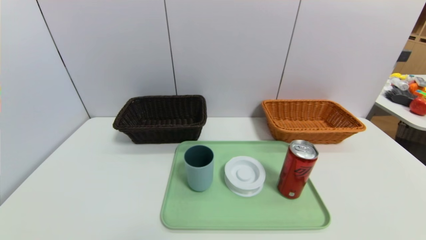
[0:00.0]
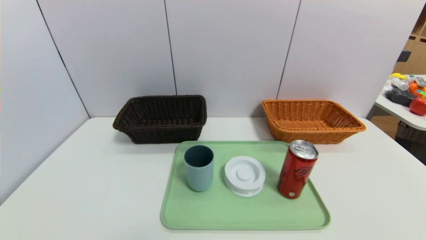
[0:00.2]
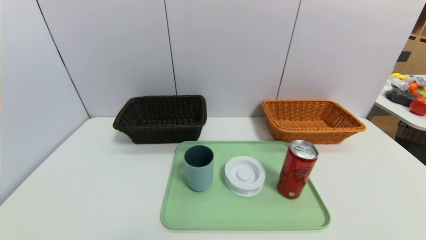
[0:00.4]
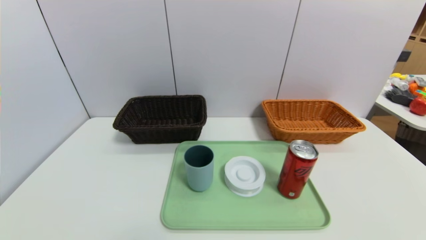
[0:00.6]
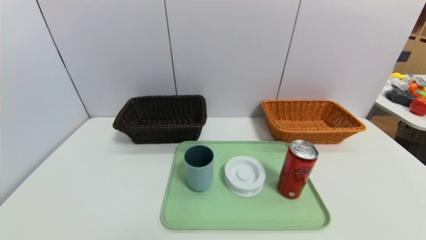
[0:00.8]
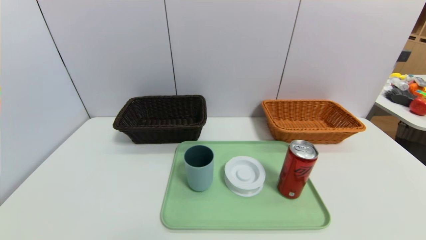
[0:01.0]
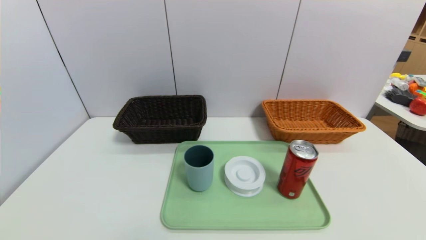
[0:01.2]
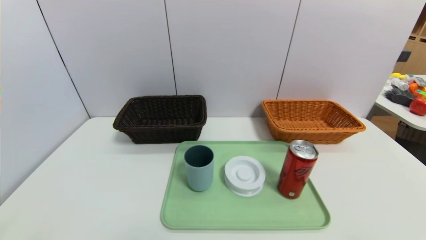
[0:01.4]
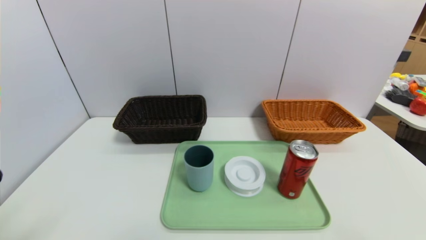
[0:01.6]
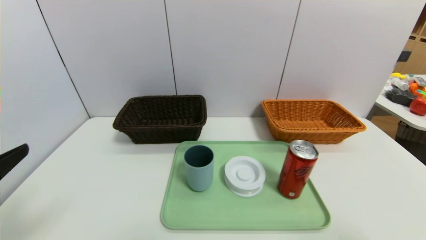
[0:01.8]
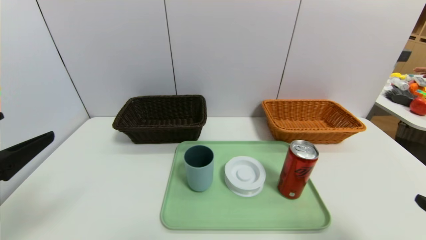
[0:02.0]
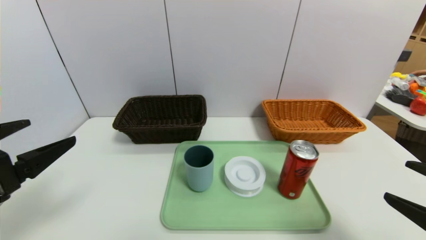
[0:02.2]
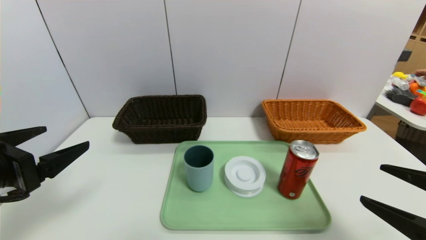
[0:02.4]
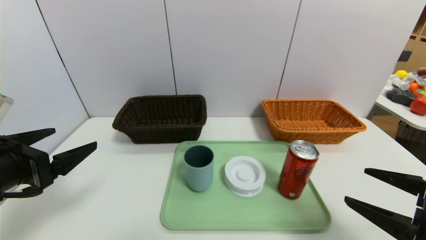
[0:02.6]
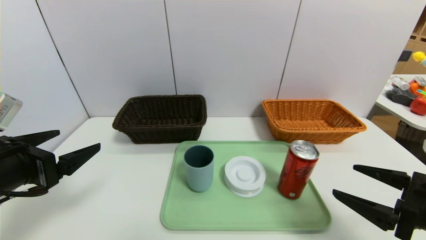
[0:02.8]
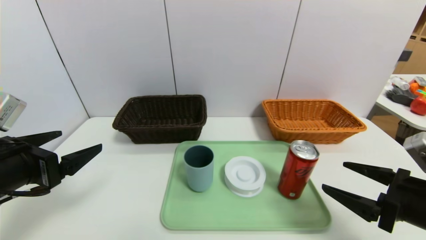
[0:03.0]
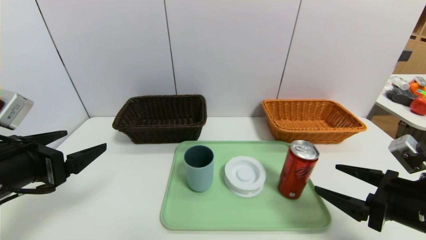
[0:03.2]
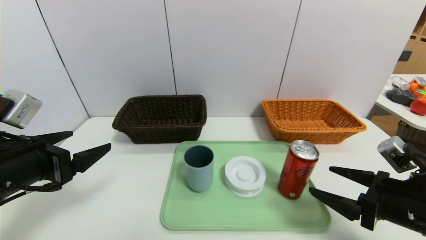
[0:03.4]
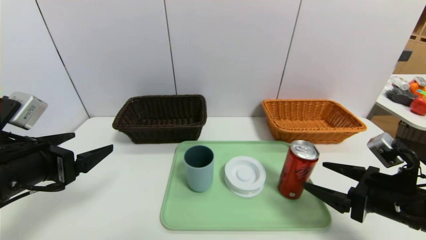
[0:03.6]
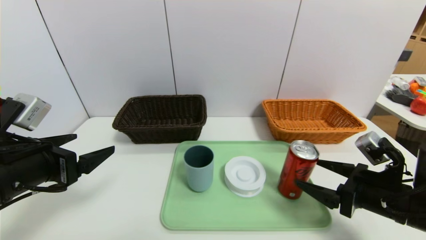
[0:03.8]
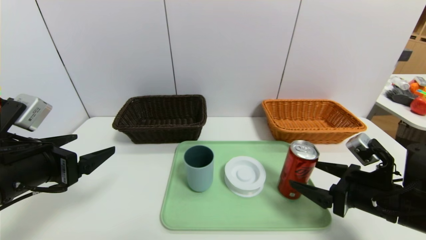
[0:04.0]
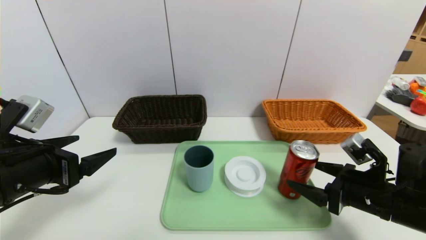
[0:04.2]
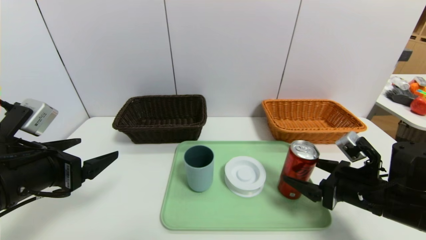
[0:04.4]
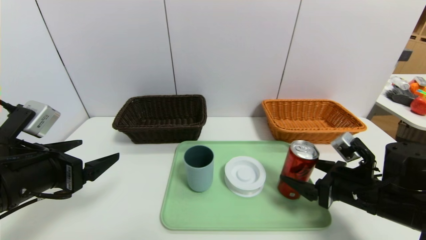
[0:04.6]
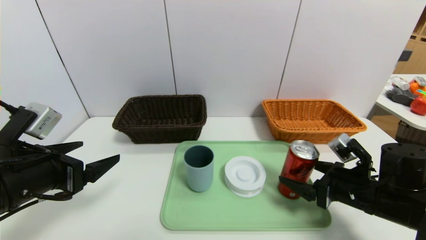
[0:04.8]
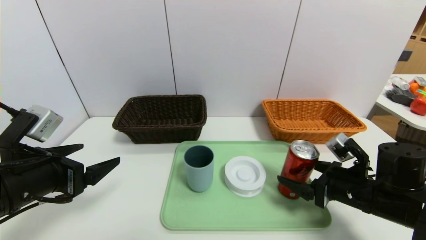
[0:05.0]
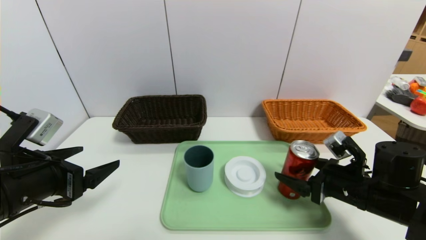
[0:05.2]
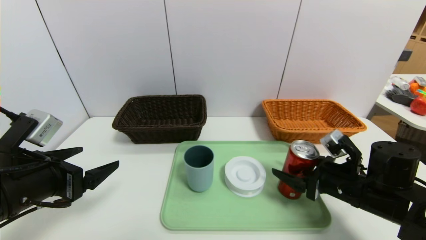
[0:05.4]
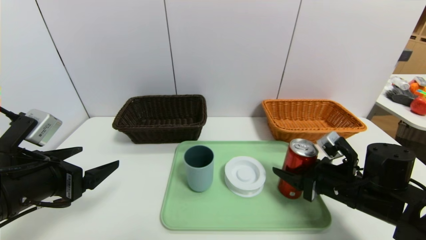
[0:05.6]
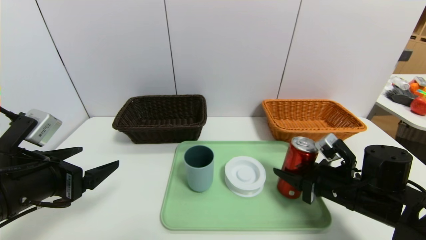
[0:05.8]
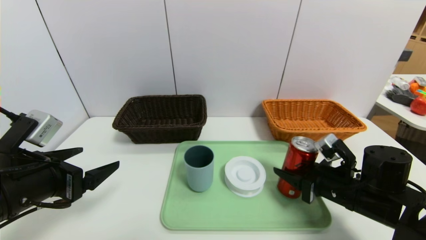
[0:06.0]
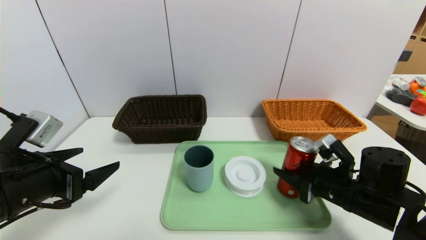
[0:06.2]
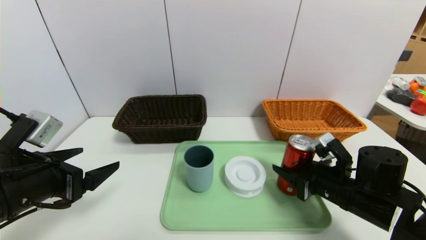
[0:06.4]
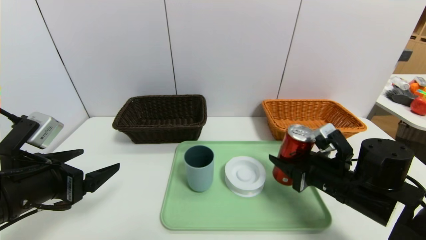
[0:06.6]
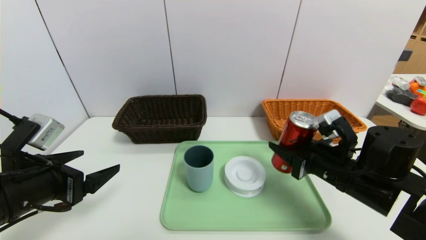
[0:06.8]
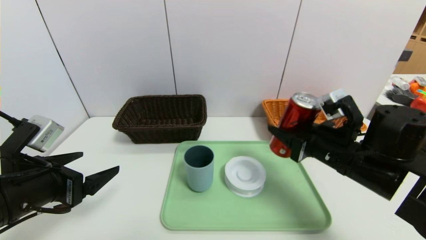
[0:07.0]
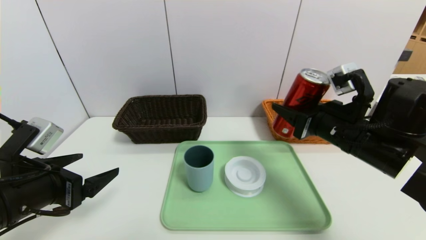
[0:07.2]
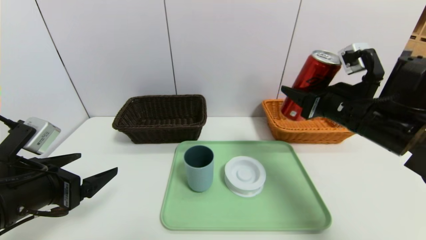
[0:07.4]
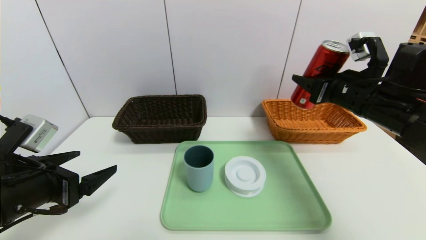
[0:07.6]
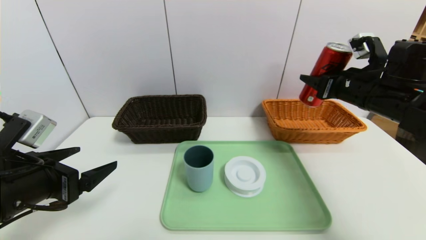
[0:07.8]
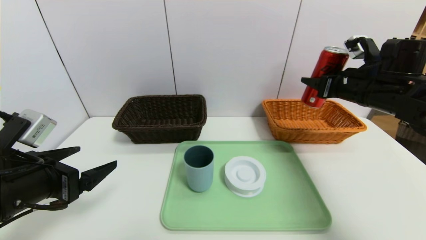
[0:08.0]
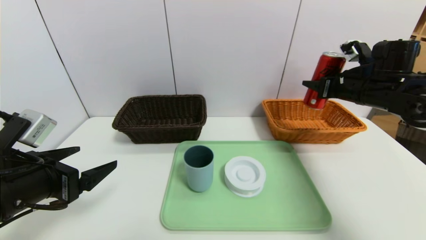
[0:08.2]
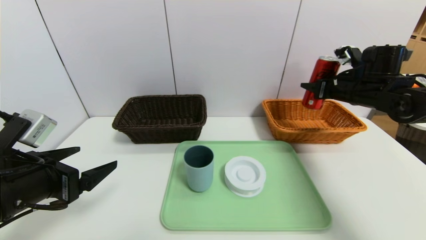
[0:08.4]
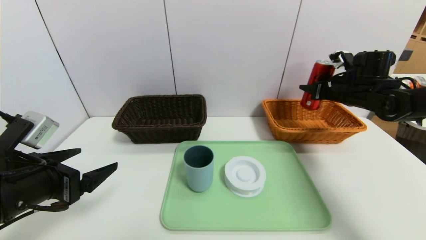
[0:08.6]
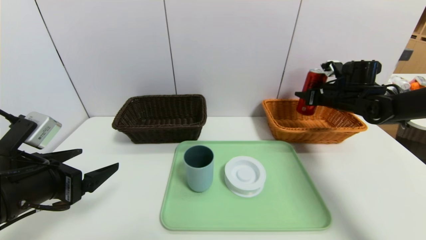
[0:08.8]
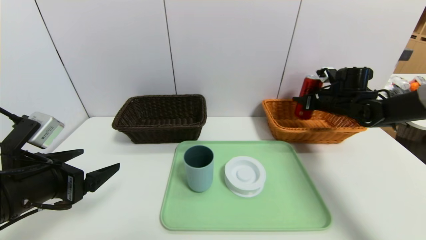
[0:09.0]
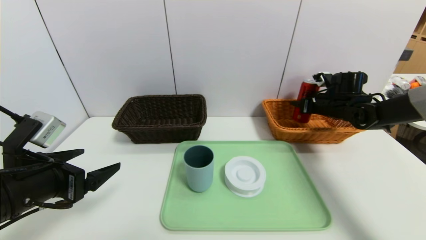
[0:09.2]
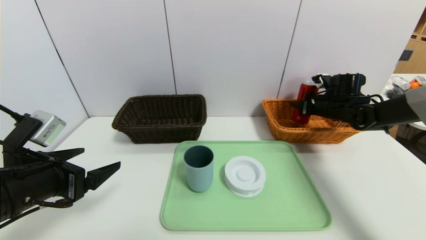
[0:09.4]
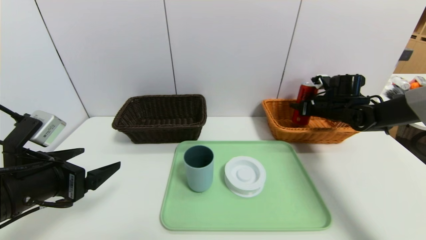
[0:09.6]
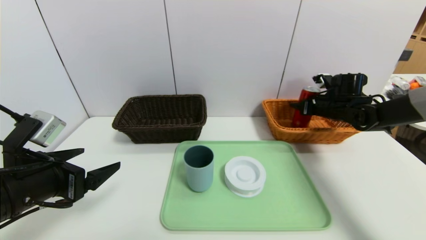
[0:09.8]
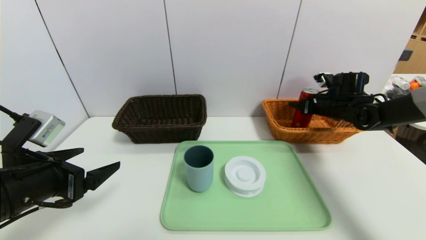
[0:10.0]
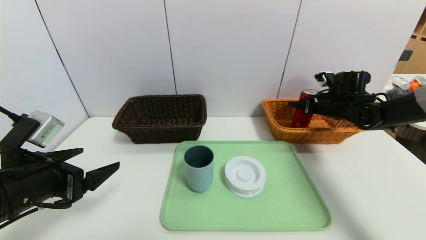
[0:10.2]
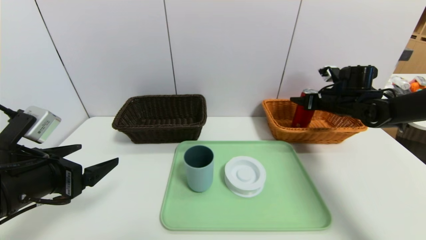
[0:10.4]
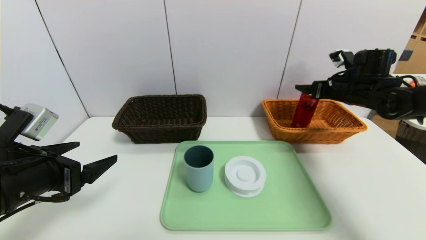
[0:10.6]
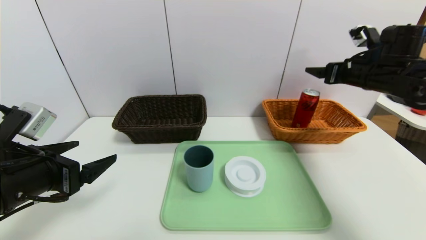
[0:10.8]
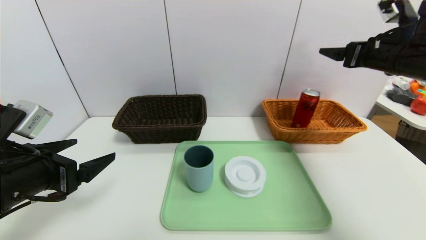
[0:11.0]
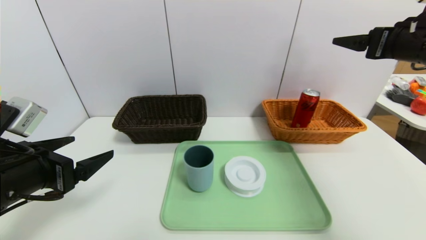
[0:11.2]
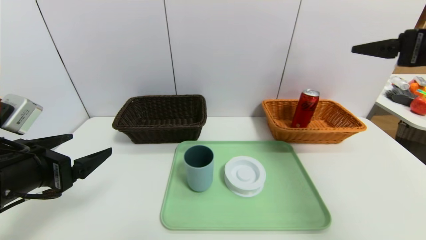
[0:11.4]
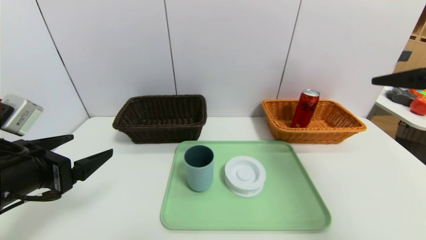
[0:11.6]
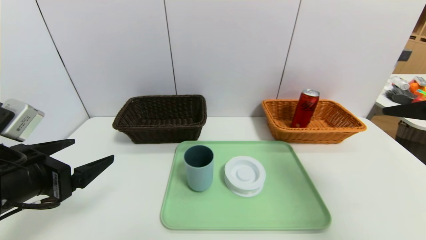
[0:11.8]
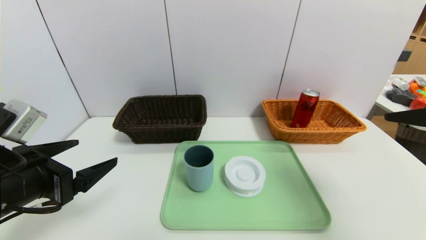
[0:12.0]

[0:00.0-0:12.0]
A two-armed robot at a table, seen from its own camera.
Task of the whole recording: place the food in the right basket with the right gripper, and place the non food items in the left basket with the left gripper.
Step, 0:00.0 to 0:10.4: Grasp the coke and put it in the right basket.
0:01.6 to 0:03.0: The right gripper is displaced forward and downward by some 15 cm, while the left gripper shifts approximately 15 cm forward.
0:03.0 to 0:04.4: The right gripper travels forward by some 5 cm.
0:04.4 to 0:06.0: The right gripper closes up.
0:06.0 to 0:07.6: The right gripper shifts about 15 cm upward and forward.
0:07.6 to 0:09.0: The right gripper heads forward, downward and to the right, covering approximately 20 cm.
0:09.0 to 0:10.4: The right gripper opens.
0:10.4 to 0:12.0: The right gripper is displaced backward and upward by roughly 30 cm.

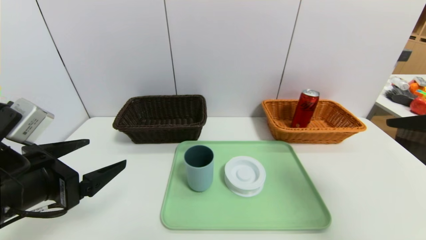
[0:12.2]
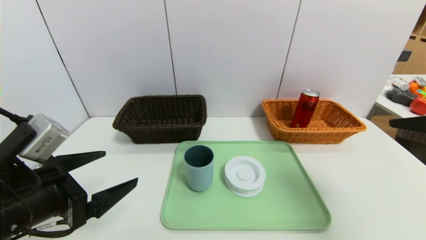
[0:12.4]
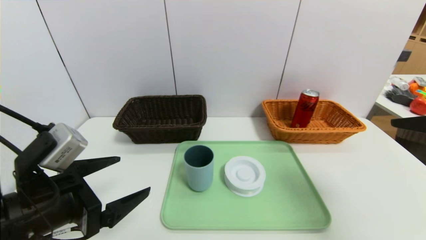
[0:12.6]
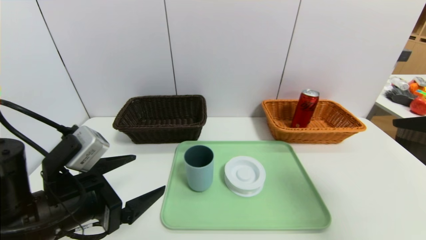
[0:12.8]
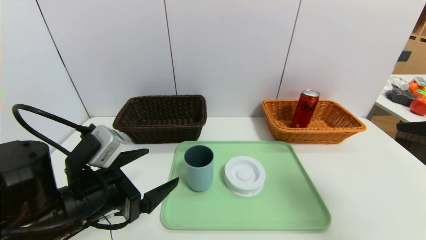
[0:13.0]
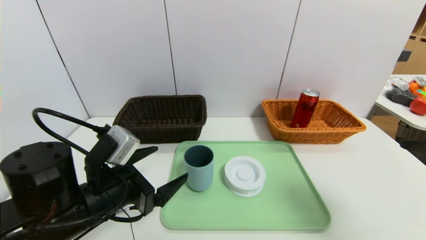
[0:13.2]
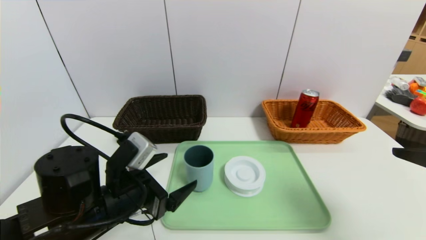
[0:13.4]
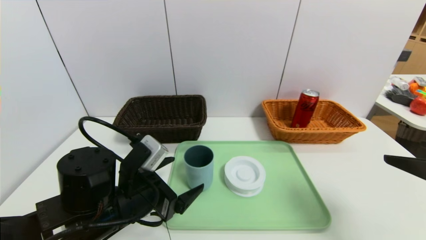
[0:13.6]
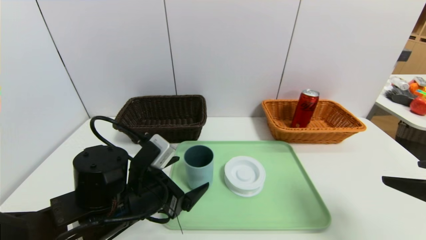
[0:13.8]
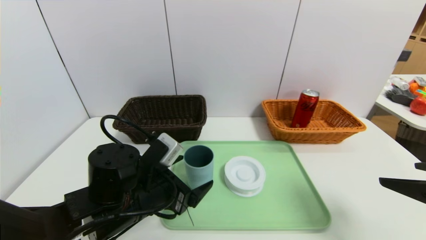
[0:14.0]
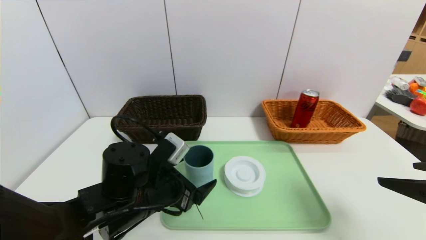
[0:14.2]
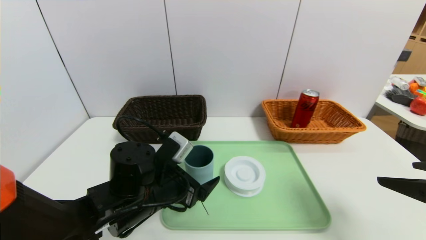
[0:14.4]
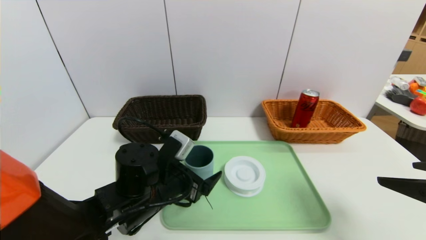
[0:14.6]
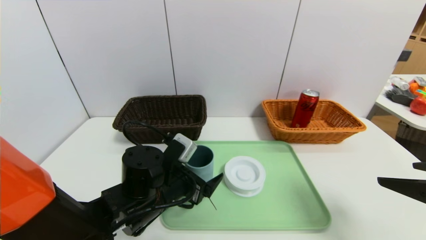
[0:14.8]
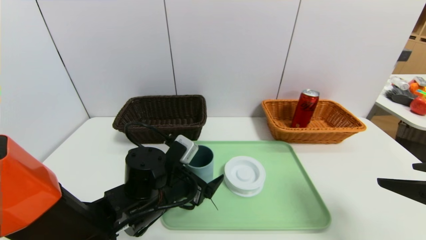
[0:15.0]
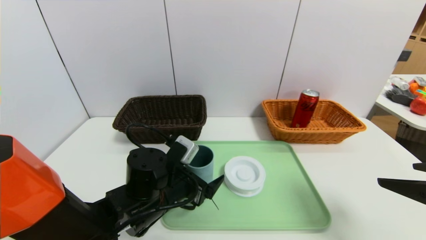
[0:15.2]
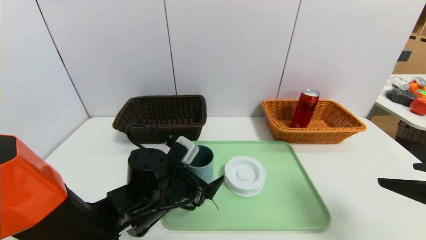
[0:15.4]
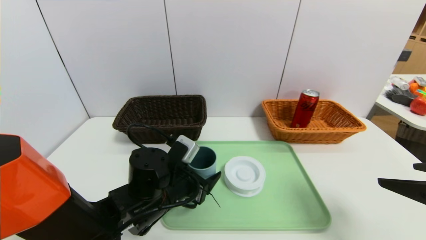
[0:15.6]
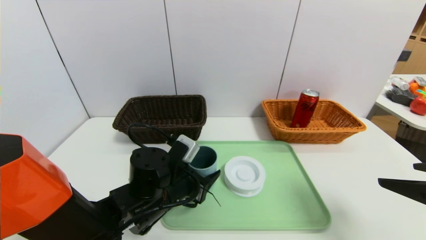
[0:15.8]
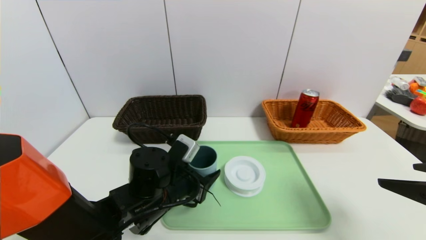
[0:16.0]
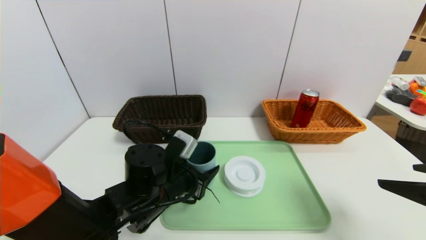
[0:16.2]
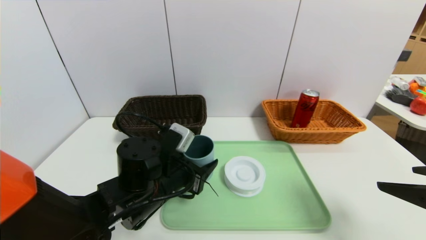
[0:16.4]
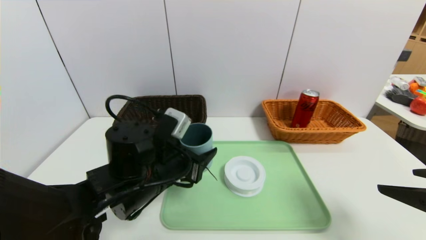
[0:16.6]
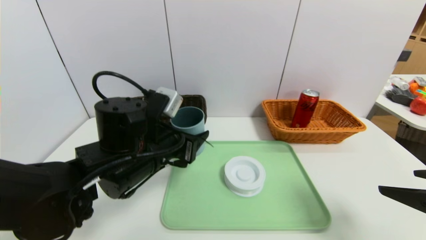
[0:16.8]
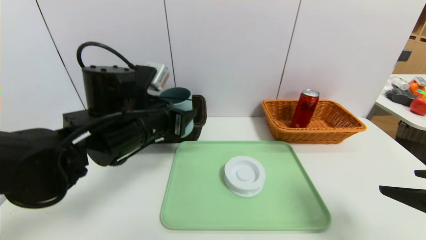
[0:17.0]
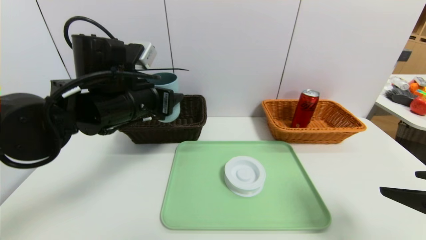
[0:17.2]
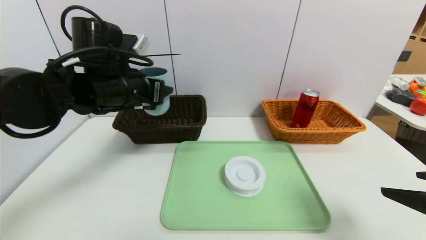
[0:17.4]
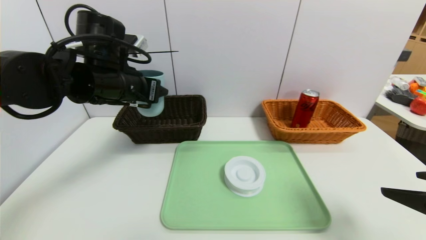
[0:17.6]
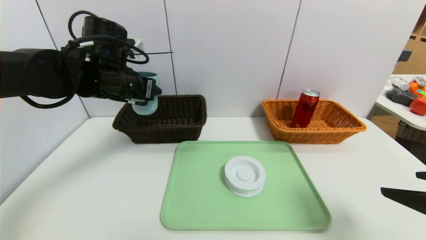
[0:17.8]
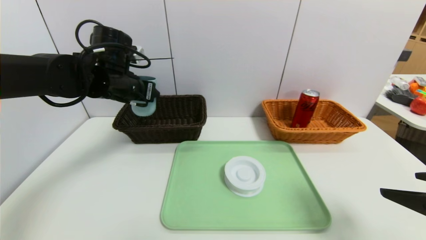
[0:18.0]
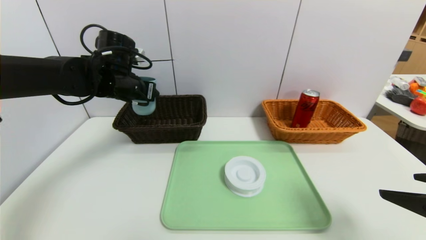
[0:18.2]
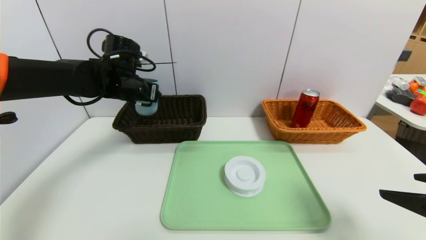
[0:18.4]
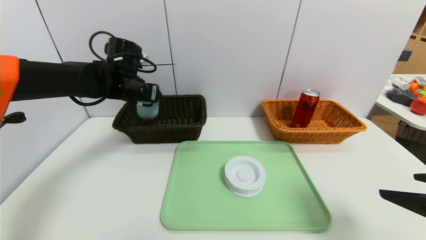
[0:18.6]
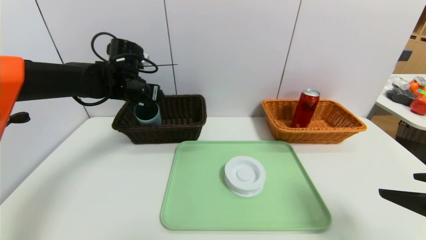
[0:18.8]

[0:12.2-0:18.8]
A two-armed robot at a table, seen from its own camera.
Task of the whole recording: place the food in the right basket with the right gripper, and place the non food items in the left basket with the left gripper.
0:12.2 to 0:13.8: The right gripper goes approximately 5 cm downward. Meanwhile the left gripper shifts some 15 cm to the right, downward and forward.
0:13.8 to 0:15.4: The left gripper changes place by approximately 5 cm.
0:15.4 to 0:17.2: The left gripper goes about 15 cm upward, and closes up.
0:17.2 to 0:18.8: The left gripper is displaced forward by about 15 cm.
